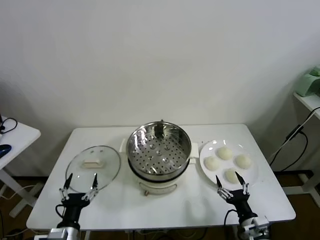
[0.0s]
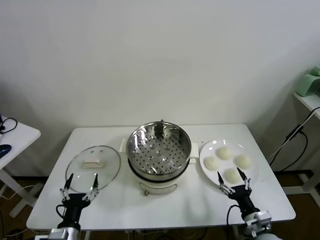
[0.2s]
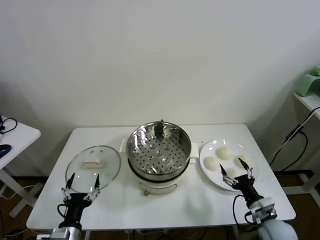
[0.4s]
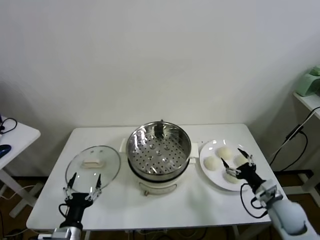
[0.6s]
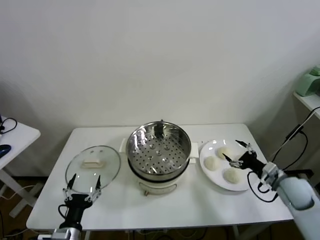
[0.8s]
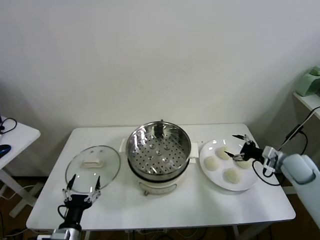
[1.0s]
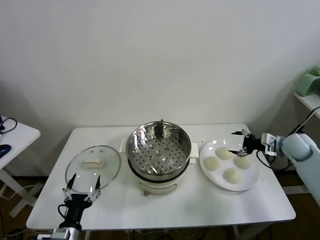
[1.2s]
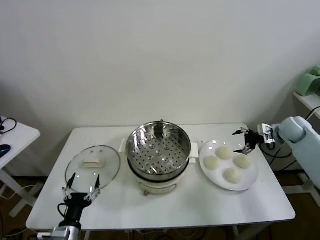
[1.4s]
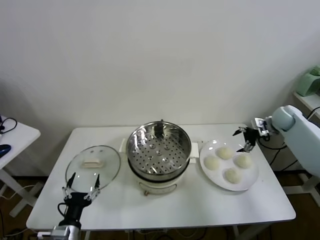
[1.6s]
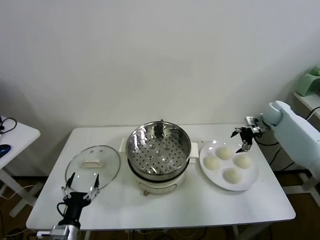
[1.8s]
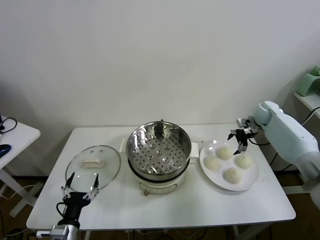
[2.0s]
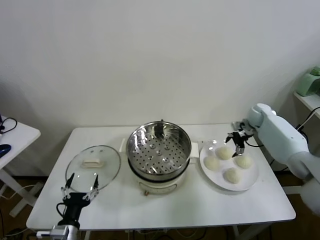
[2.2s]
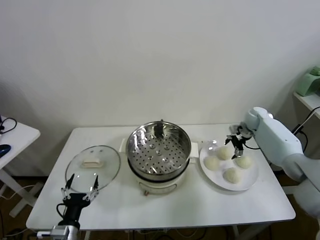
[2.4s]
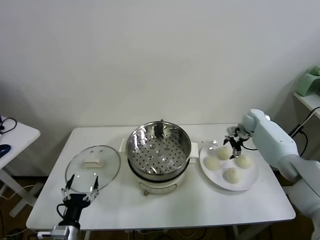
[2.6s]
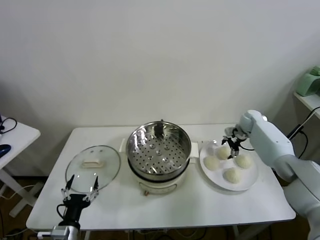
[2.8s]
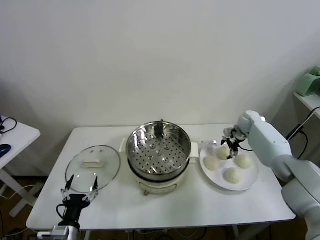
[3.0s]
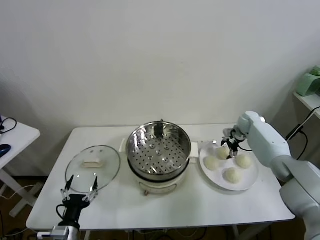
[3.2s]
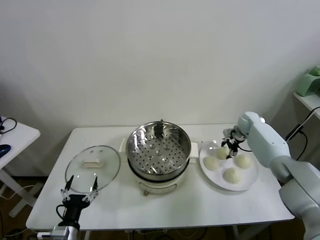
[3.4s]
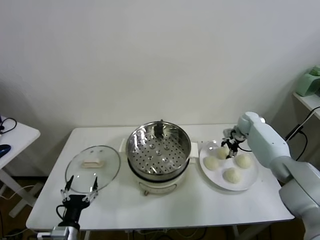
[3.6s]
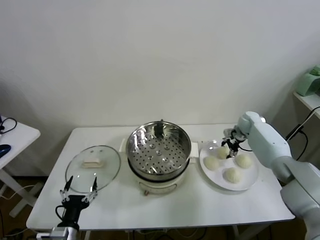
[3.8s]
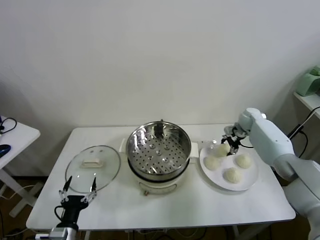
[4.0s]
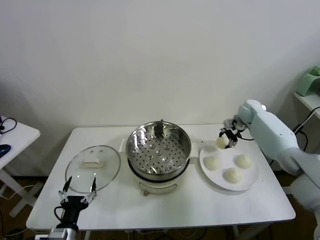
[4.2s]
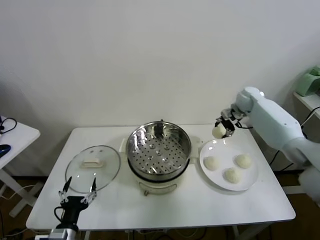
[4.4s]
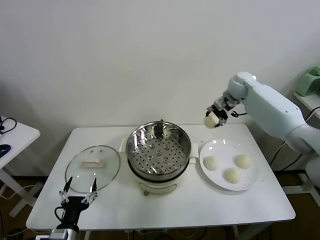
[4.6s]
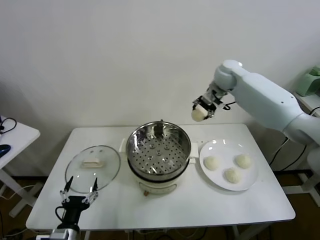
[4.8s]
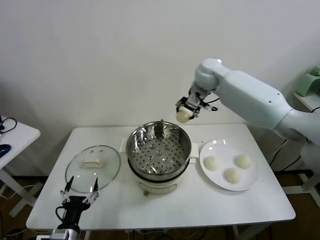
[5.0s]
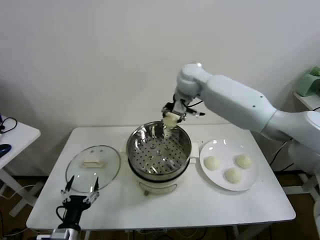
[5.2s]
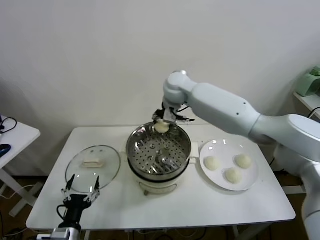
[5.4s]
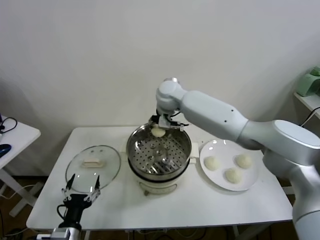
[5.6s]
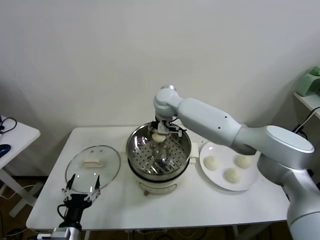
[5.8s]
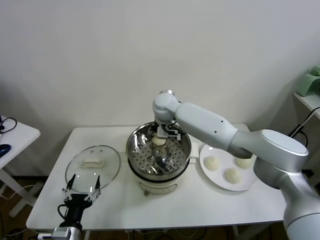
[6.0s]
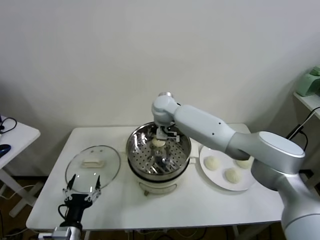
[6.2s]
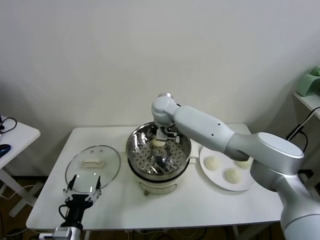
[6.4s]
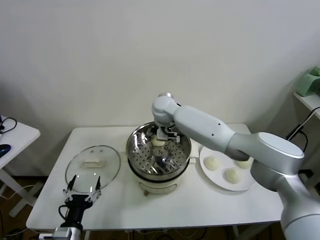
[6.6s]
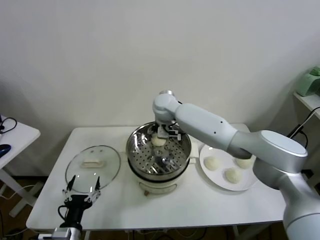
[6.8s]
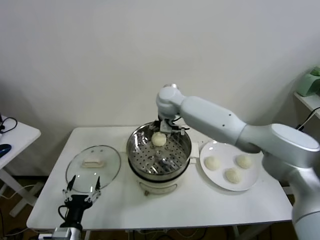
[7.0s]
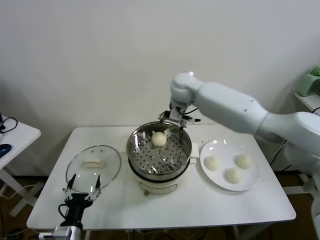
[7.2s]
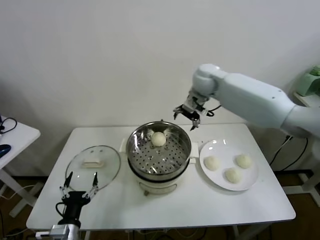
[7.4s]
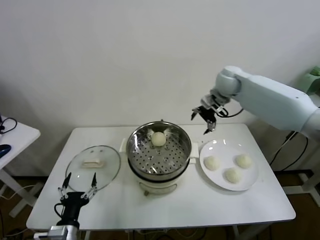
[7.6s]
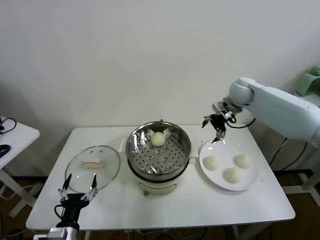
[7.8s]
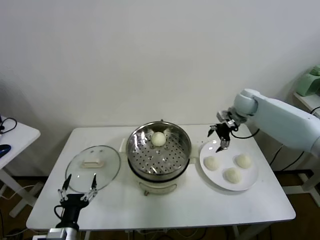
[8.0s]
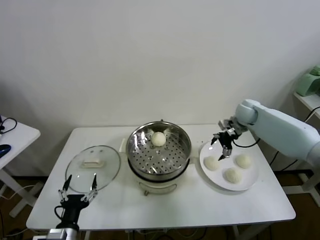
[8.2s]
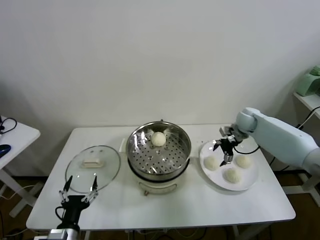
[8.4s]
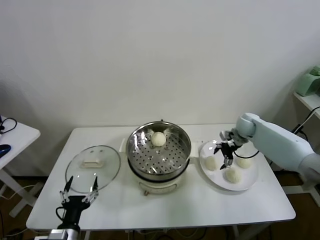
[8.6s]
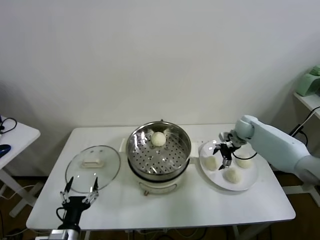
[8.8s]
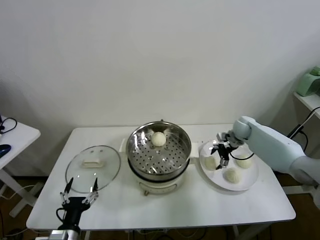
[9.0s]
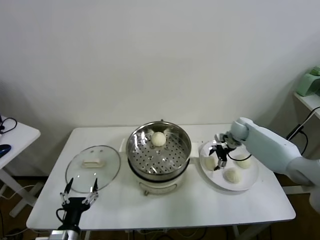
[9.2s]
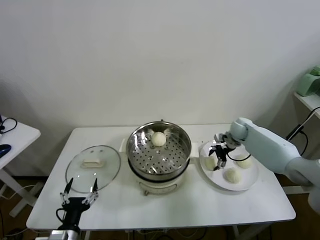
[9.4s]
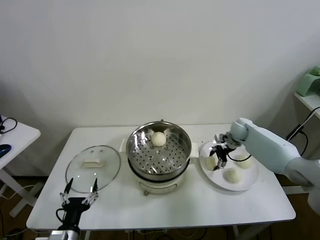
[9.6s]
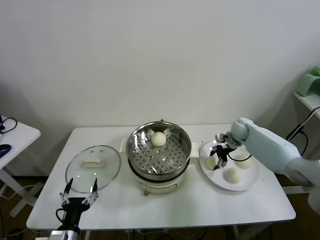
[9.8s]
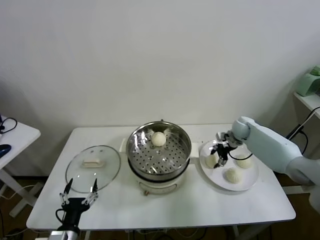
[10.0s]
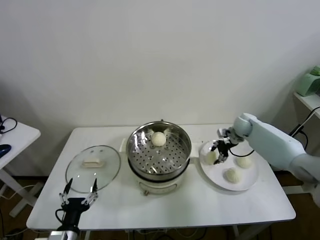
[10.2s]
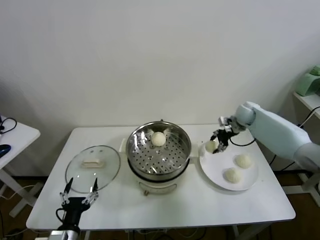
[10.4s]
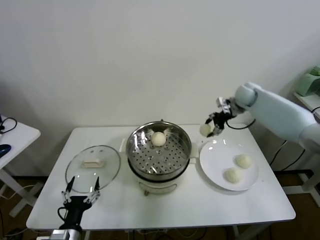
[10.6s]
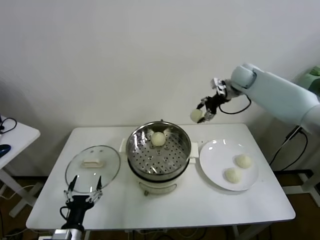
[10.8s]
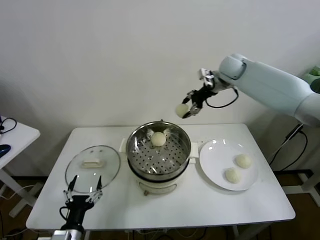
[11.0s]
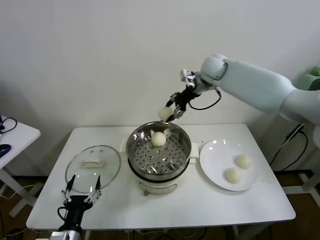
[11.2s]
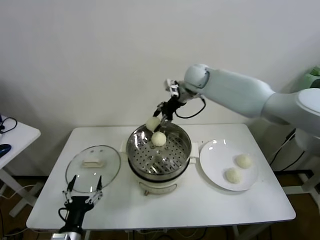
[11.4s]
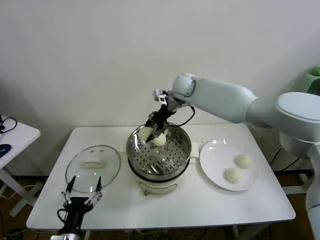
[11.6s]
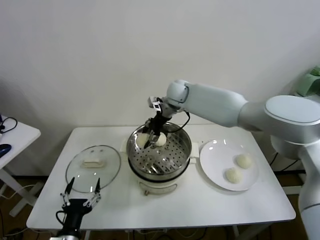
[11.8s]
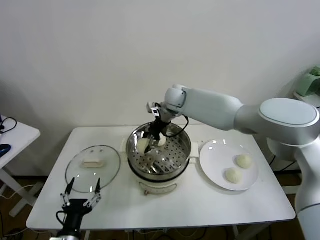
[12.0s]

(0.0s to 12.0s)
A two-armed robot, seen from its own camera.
Task of the whole recording: take steamed baozi put them in steamer.
Step, 0.0s - 3.2s: Grasp the baozi in the plate with right gripper.
Step, 3.4s - 6.6s: Place the baozi on the steamer with right gripper.
Step, 6.8s - 9.4s: Grasp the baozi in the plate with right gripper.
1.6s - 3.0s: The right gripper travels to the left, downward and forward by about 15 cm.
3.0s - 4.4s: The right gripper shifts approximately 15 cm upward, and closes.
4.4s - 6.0s: The right gripper travels to the left by about 35 cm.
6.0s - 7.6s: The right gripper heads to the right, covering some 25 cm, and opens its fingers.
7.6s - 9.0s: The right gripper travels downward and to the right by some 25 cm.
9.0s - 10.4s: The right gripper heads upward, covering some 5 cm, and closes.
10.4s - 12.0s: The right gripper travels to the left by some 30 cm.

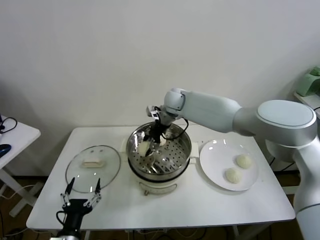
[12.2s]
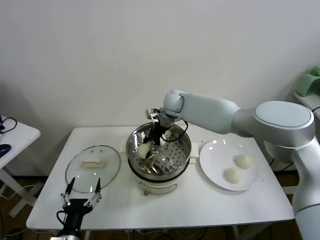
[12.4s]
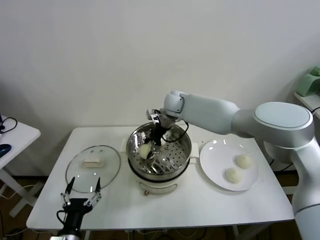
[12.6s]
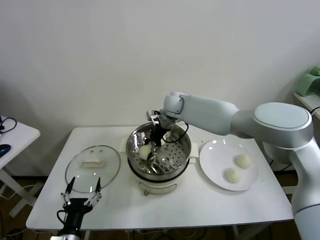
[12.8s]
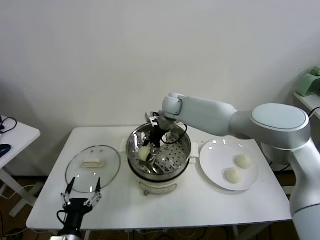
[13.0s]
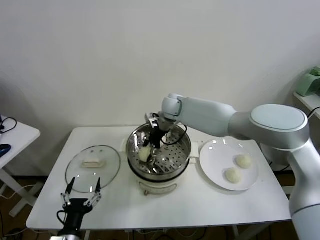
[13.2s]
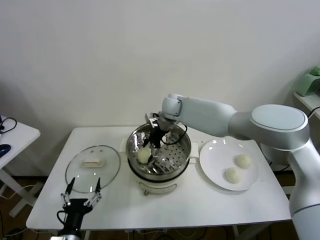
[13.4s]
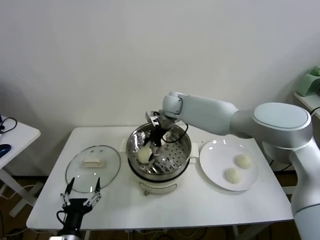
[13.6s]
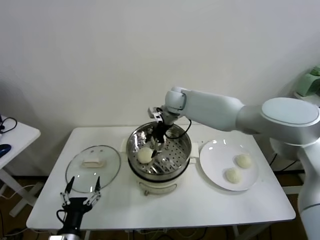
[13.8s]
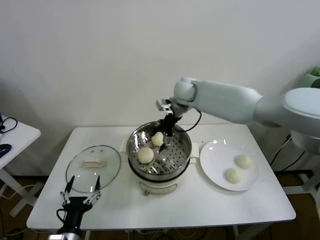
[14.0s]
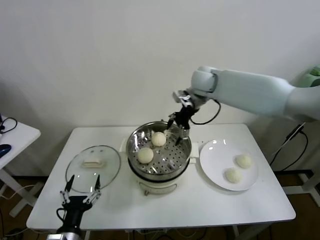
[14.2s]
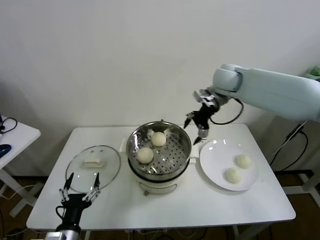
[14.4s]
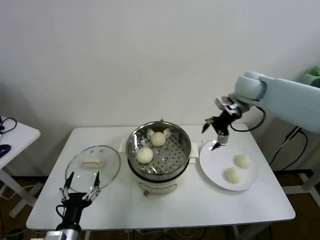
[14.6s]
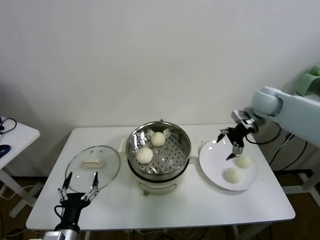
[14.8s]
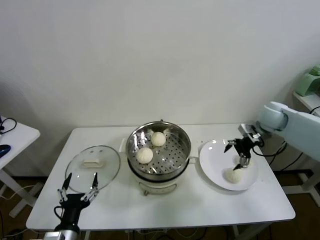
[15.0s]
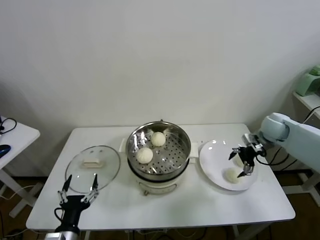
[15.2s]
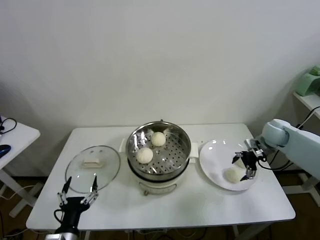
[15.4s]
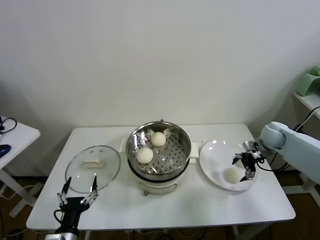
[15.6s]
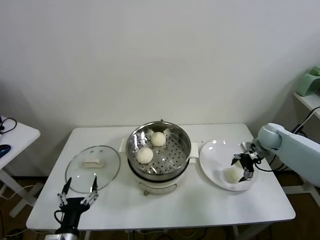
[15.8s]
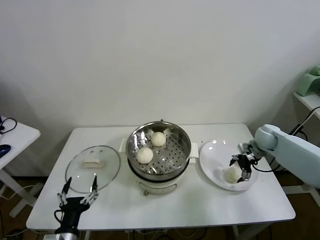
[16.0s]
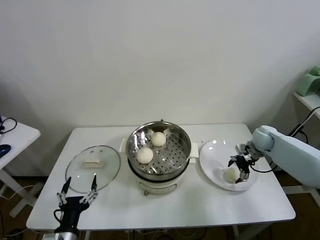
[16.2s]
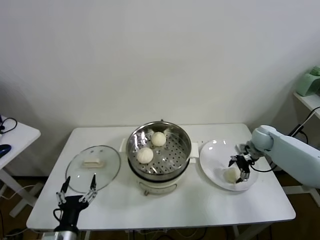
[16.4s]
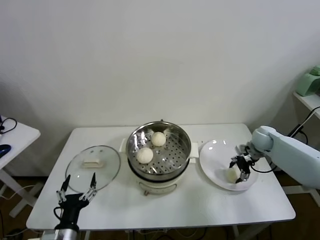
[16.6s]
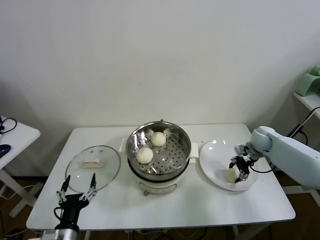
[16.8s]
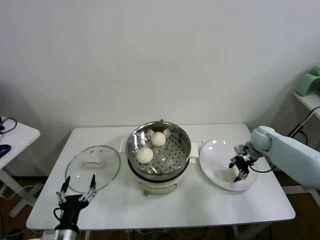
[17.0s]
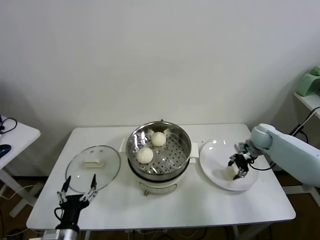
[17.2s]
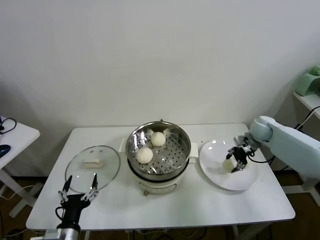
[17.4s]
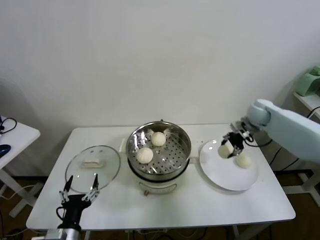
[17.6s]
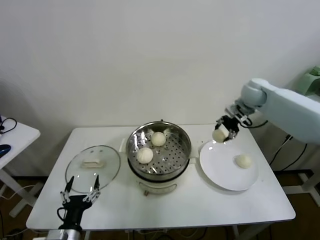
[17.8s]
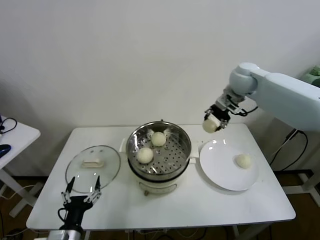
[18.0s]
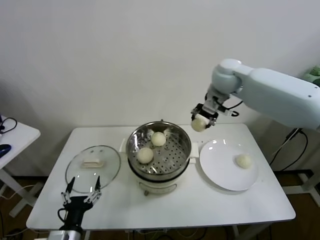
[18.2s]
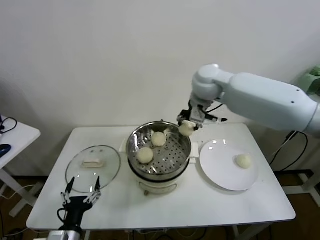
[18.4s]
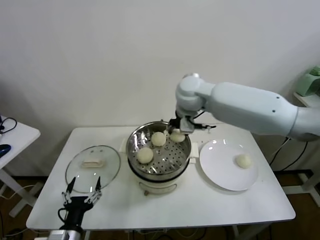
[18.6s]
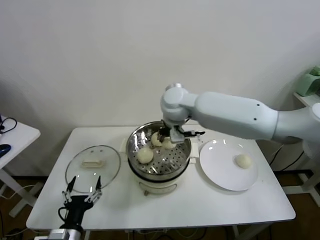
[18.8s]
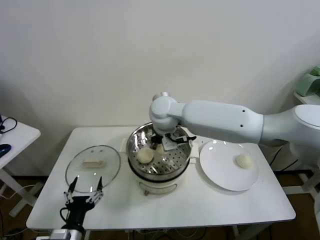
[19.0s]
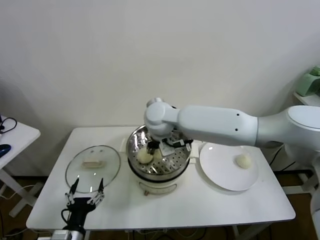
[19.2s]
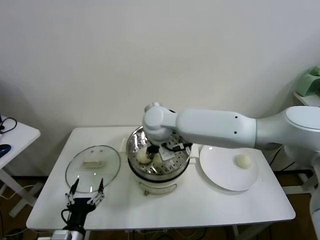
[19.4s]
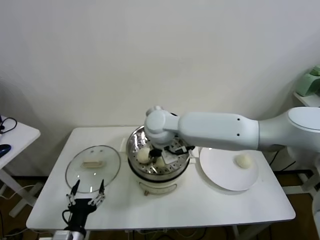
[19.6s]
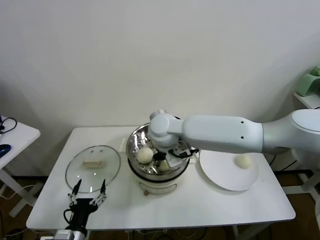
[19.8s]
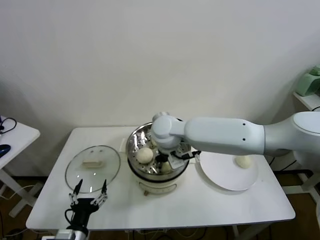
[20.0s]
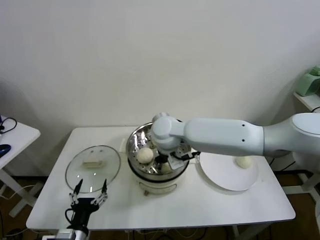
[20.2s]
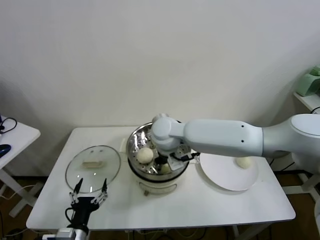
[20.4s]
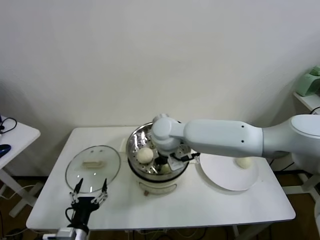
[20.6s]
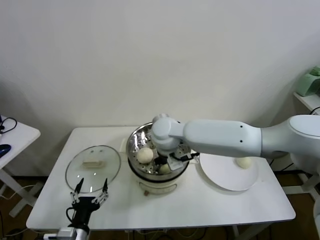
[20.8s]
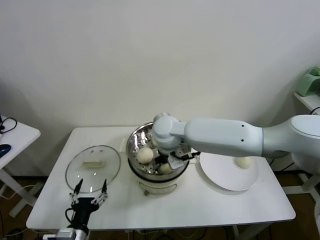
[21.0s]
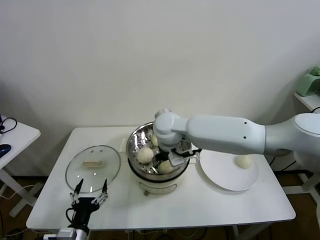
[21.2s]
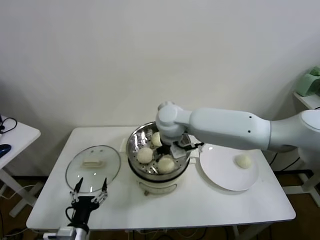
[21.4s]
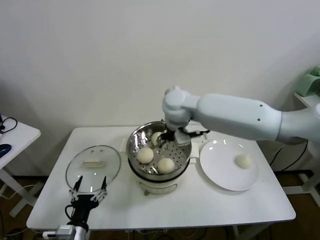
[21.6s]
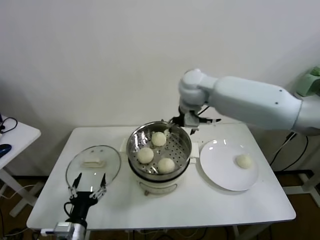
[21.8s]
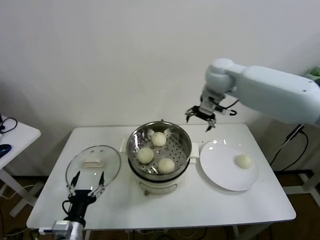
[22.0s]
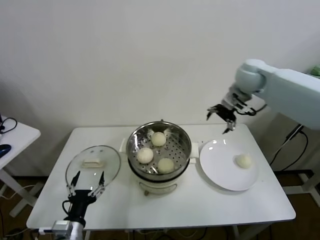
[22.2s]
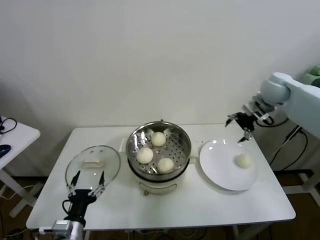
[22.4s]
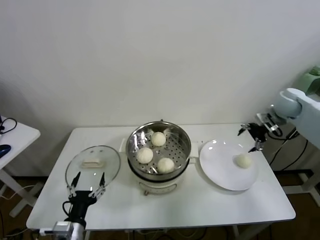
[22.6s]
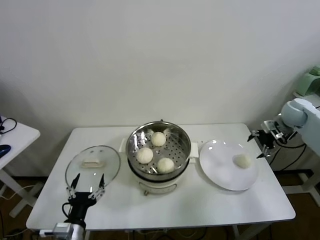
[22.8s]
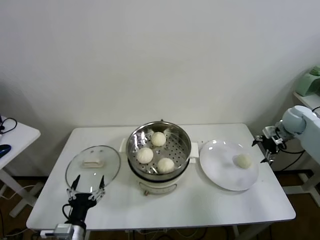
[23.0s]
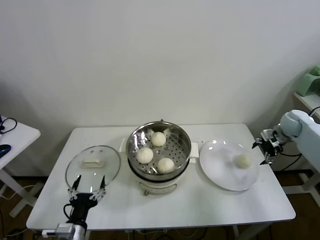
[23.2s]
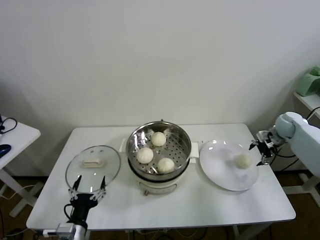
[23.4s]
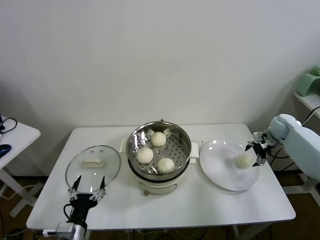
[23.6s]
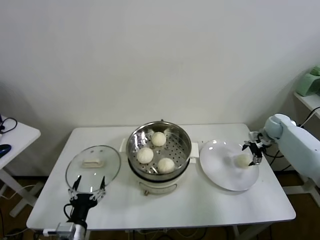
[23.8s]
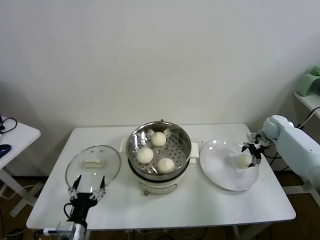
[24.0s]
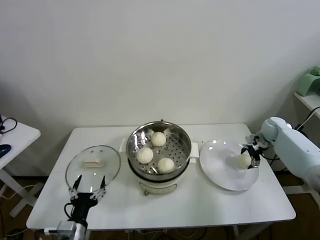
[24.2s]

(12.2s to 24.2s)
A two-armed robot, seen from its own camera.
Task of the whole recording: take steamed baozi put them in steamer.
Step, 13.6s - 16.4s: Grasp the baozi in the plate with right gripper.
Step, 16.6s - 21.0s: Place the baozi on the steamer with right gripper.
12.2s - 13.8s: The right gripper opens its fingers.
13.8s - 15.2s: The right gripper shifts some 35 cm to the right.
15.2s - 16.6s: The right gripper moves downward, approximately 10 cm, and closes.
16.6s - 18.2s: The right gripper goes roughly 35 cm upward and to the left, and closes its fingers.
18.2s - 19.8s: The right gripper moves to the left, backward and downward, approximately 25 cm.
19.8s - 21.2s: The right gripper opens its fingers.
21.2s - 22.6s: The right gripper is displaced to the right by about 40 cm.
22.6s - 24.2s: The right gripper shifts about 15 cm downward.
